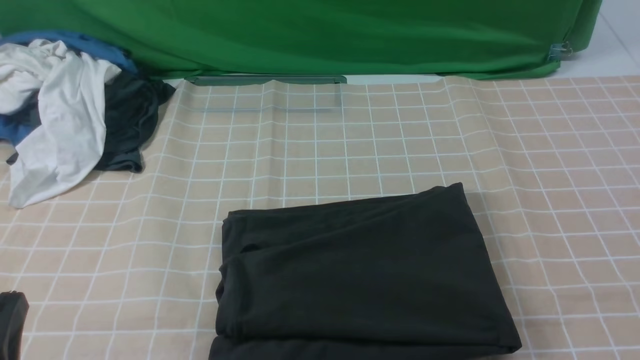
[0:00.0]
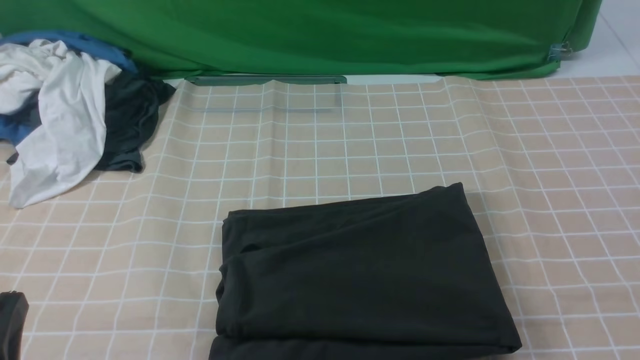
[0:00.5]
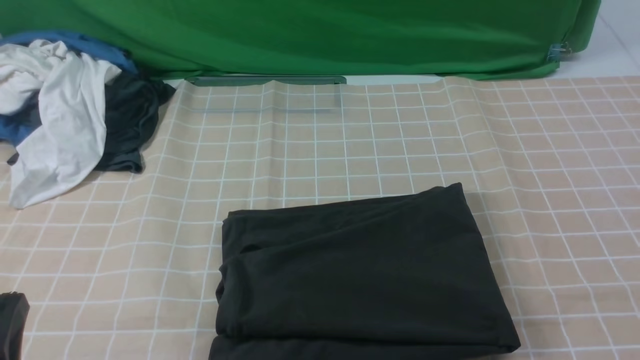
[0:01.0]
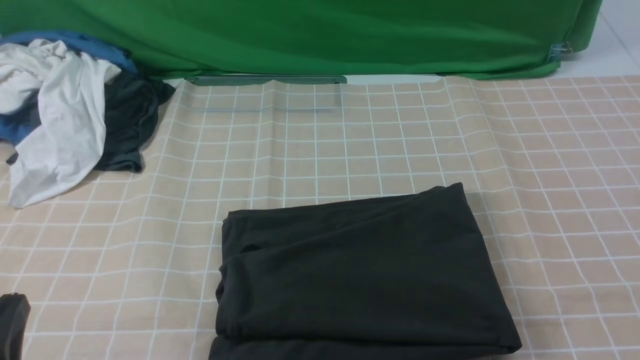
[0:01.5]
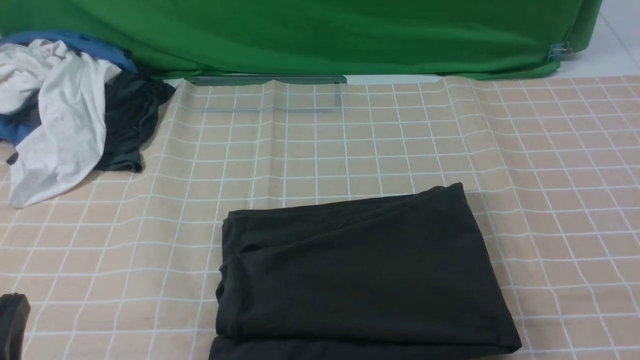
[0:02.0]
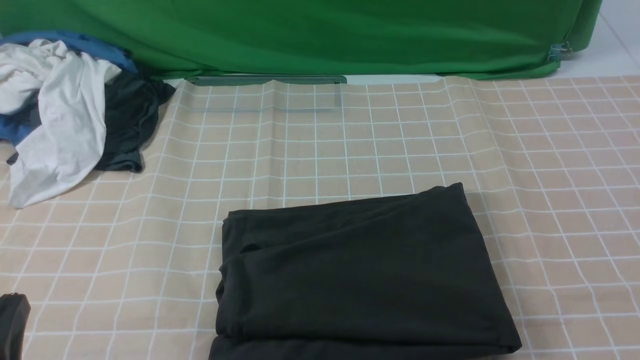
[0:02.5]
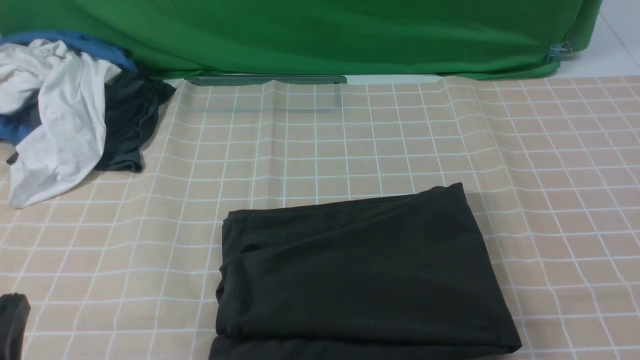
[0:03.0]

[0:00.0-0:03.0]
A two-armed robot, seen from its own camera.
0:01.5 to 0:03.0: Both grippers stay about where they are.

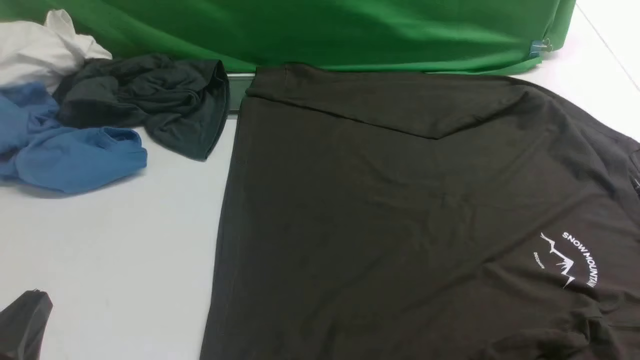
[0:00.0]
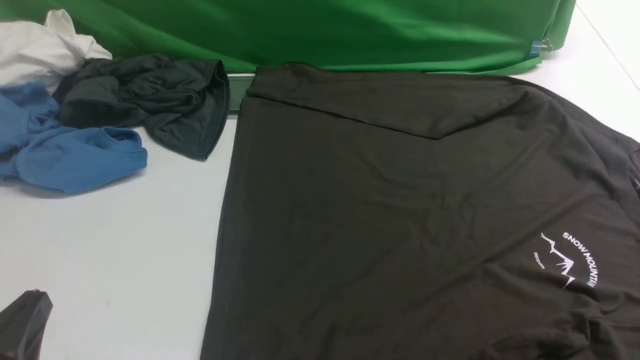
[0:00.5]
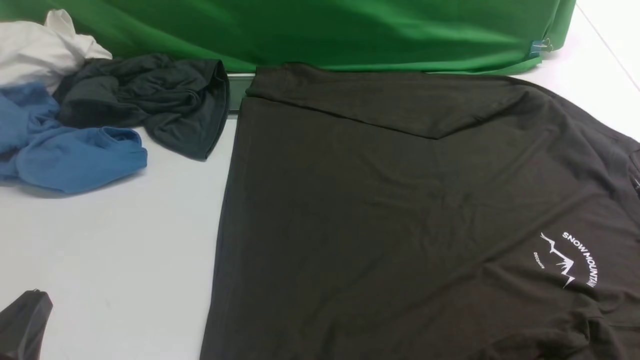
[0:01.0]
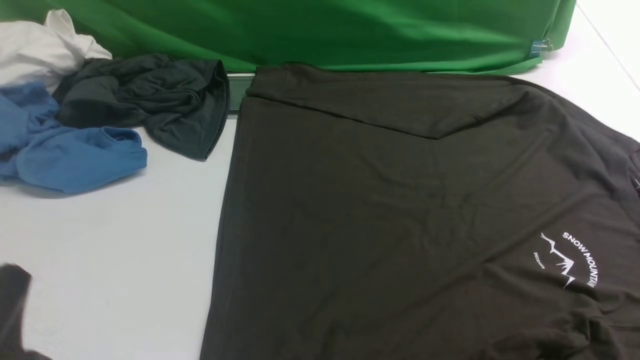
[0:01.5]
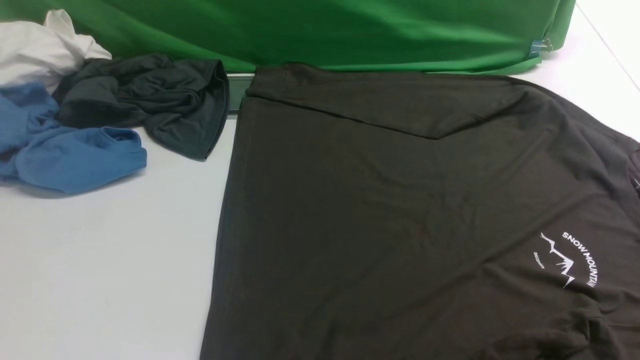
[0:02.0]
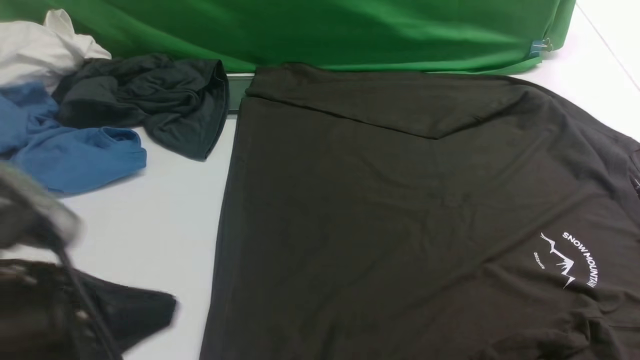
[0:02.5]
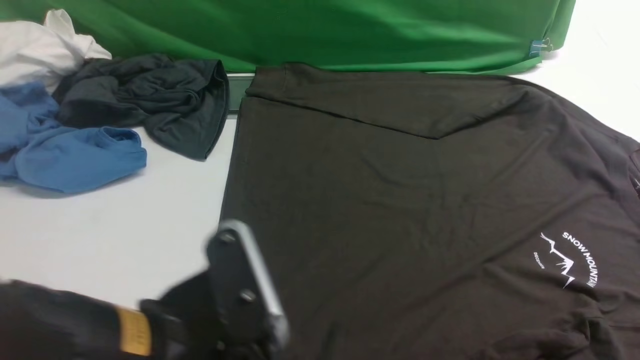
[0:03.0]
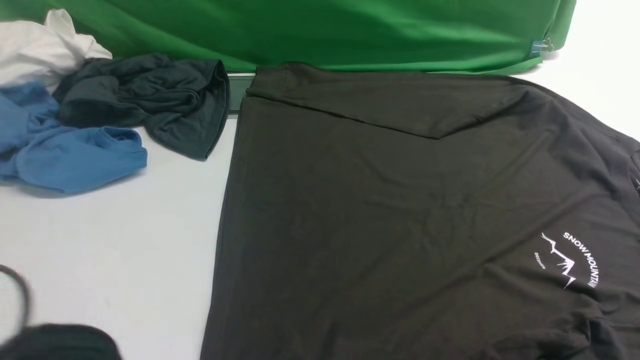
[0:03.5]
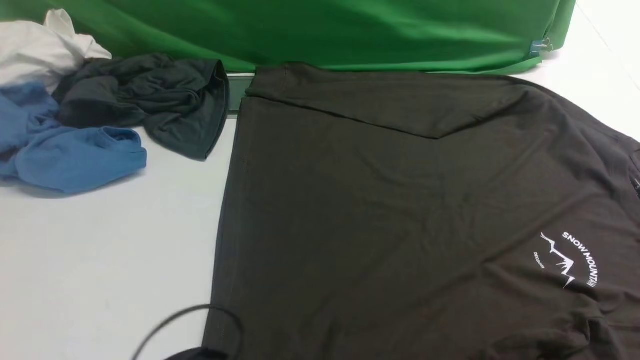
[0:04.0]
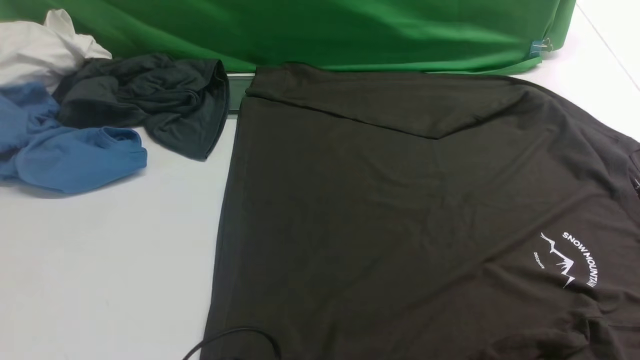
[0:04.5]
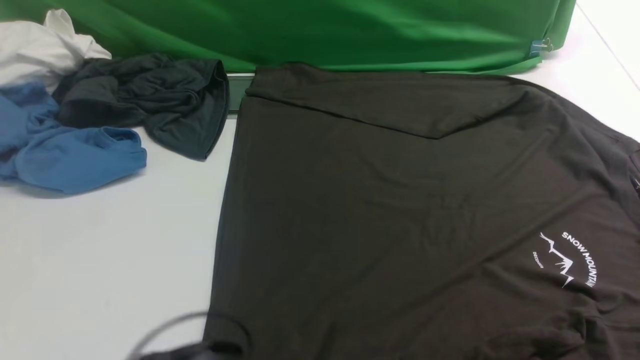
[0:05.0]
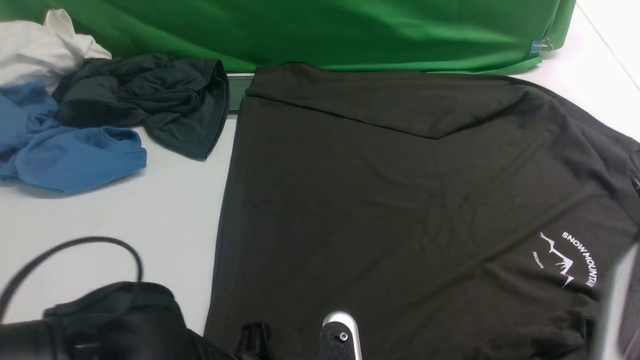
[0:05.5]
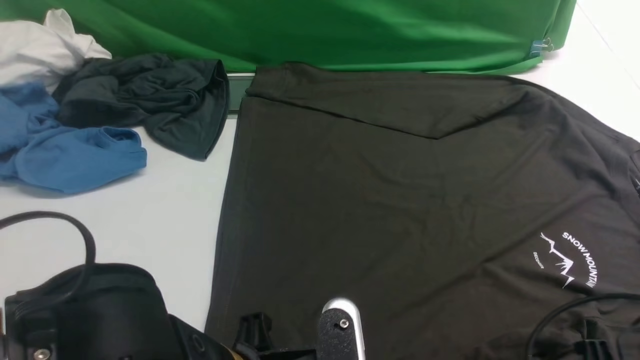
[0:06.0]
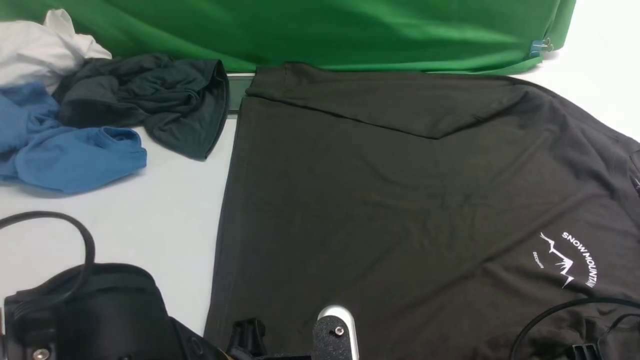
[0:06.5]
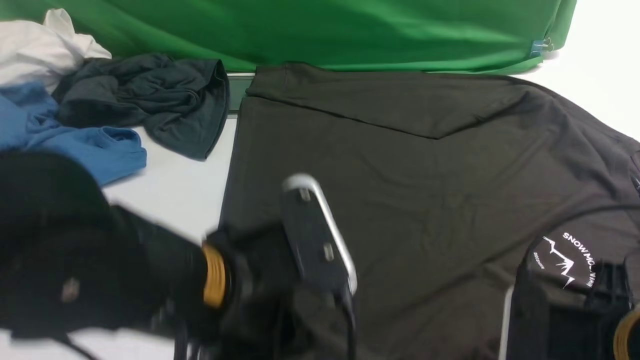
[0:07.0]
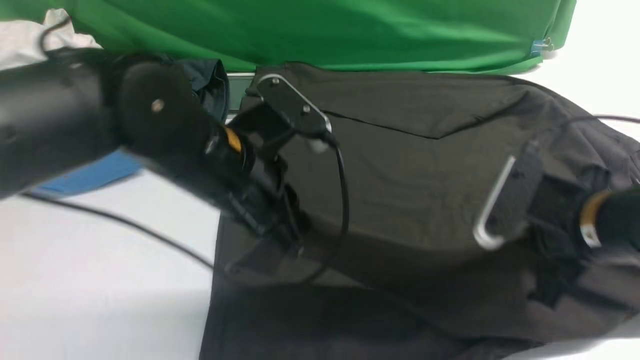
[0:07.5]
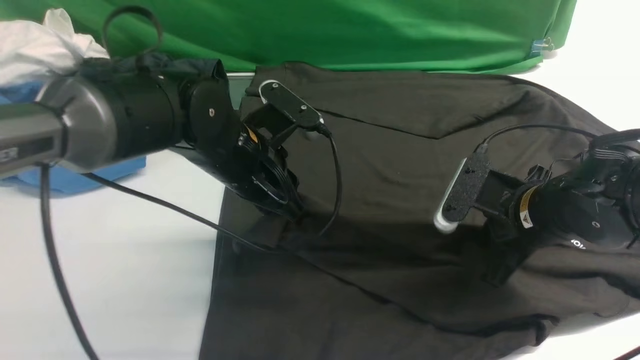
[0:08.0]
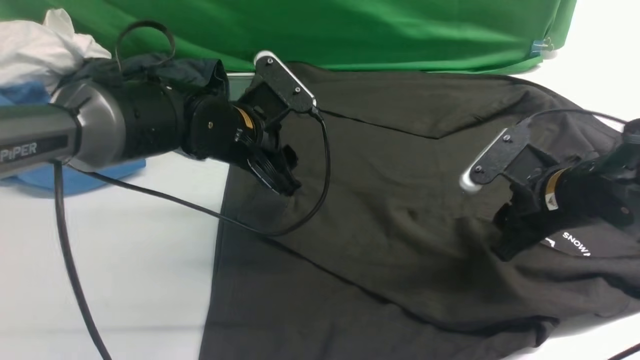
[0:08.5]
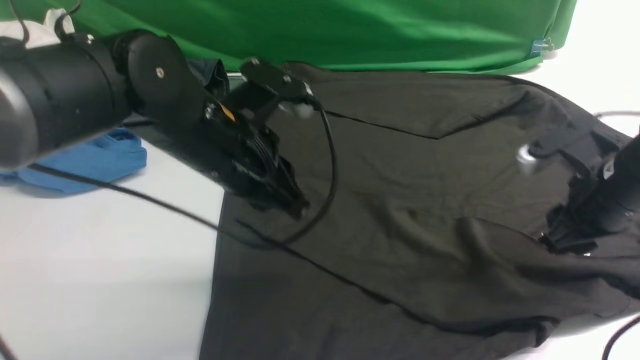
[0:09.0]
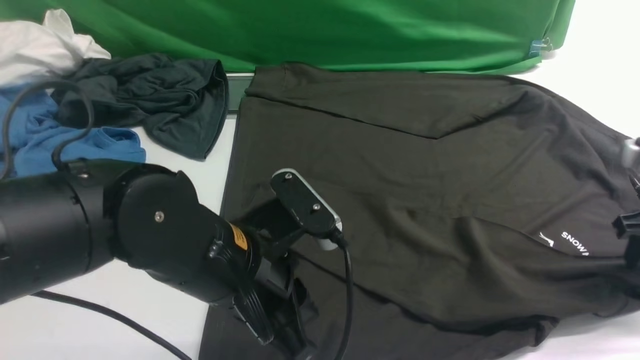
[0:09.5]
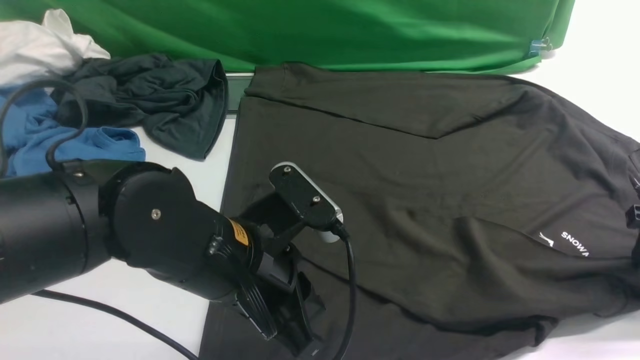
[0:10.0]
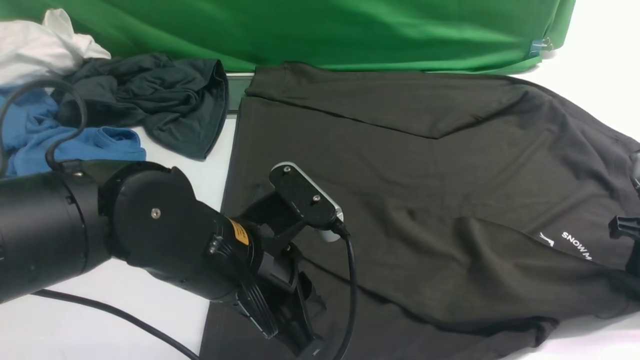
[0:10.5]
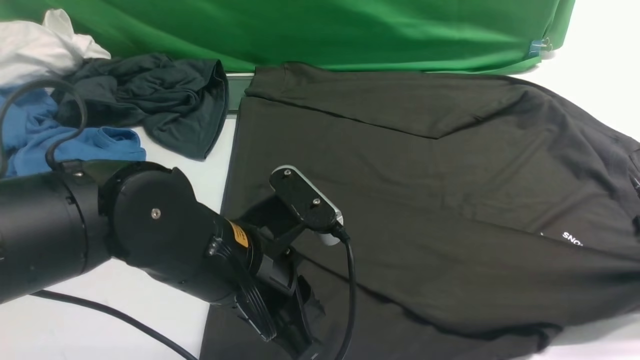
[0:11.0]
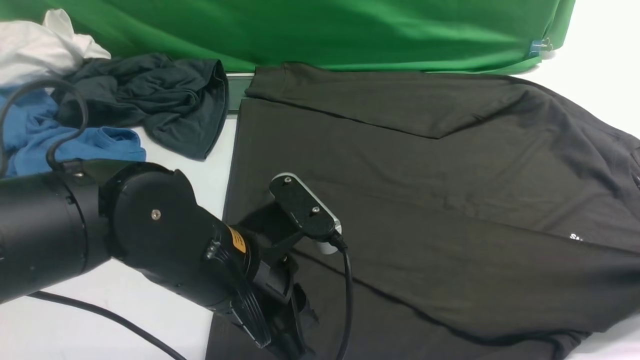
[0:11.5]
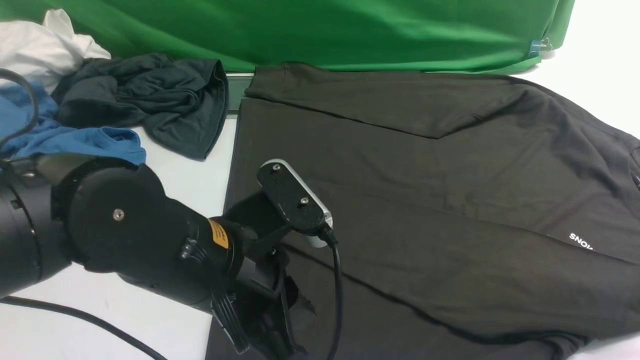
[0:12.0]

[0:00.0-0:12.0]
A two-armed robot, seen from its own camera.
Step, 0:00.0 to 0:06.5: use the left arm to clamp the cuff closest to it.
Step, 0:07.0 to 0:08.5: use the left arm to drag and place the cuff at the centered position on the left edge of the fabric.
0:00.0 to 0:02.0: The left gripper goes approximately 10 cm upward.
0:04.0 to 0:06.0: The left gripper is displaced upward by roughly 5 cm, and closes up, while the right gripper heads downward and to the left, covering about 15 cm, and opens up.
0:06.0 to 0:08.0: The two grippers go about 20 cm forward. The right gripper closes up. Meanwhile the left gripper opens.
0:08.0 to 0:10.0: The right gripper shifts some 15 cm to the right, and opens its fingers. Meanwhile the left gripper heads backward, covering roughly 15 cm, and closes.
0:10.0 to 0:12.0: The right gripper goes about 5 cm upward, and closes.

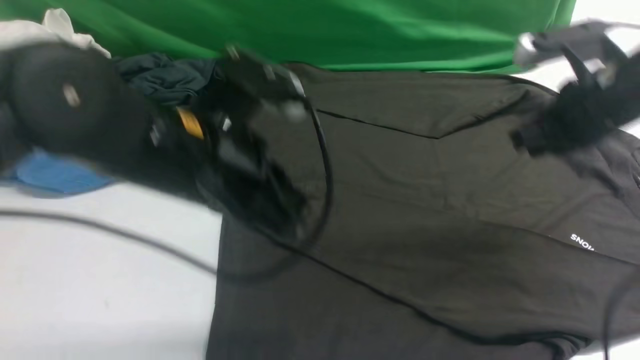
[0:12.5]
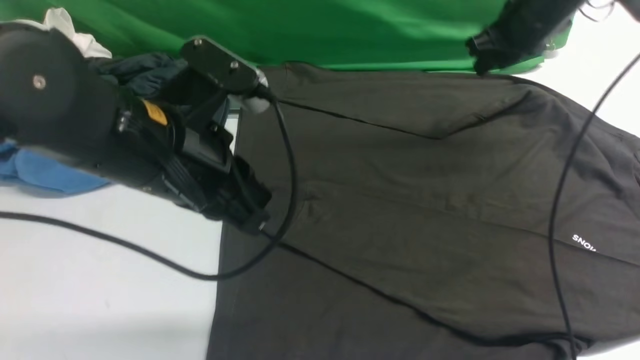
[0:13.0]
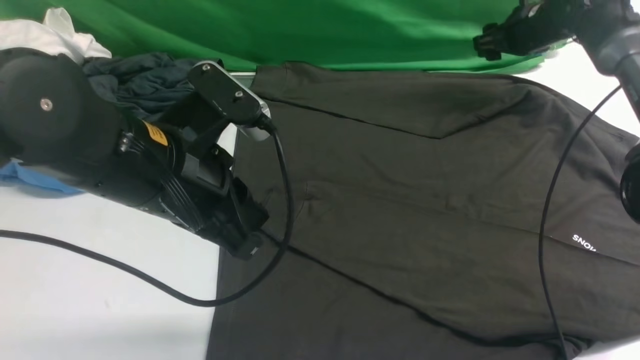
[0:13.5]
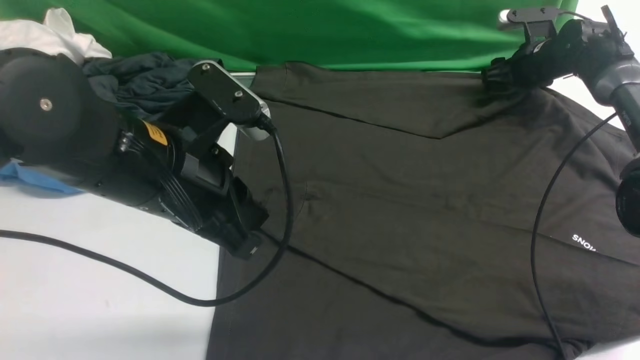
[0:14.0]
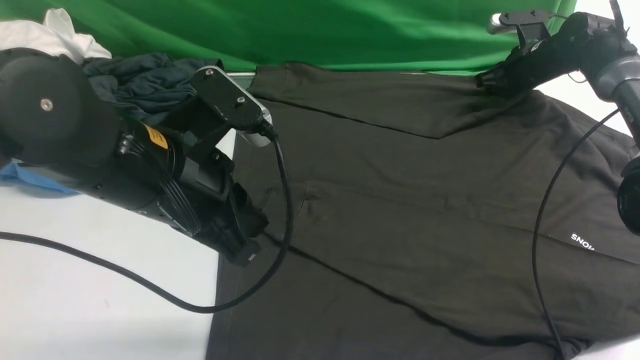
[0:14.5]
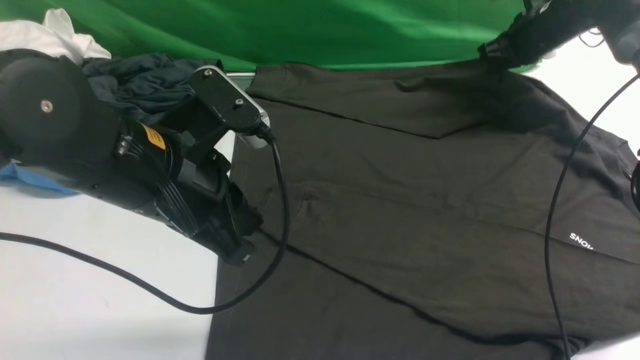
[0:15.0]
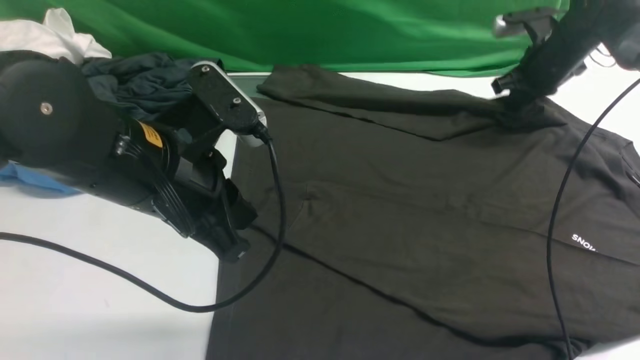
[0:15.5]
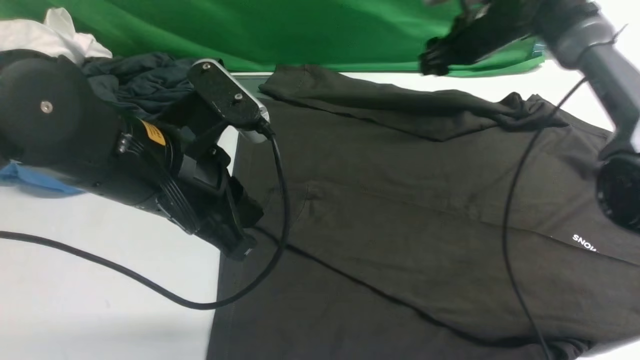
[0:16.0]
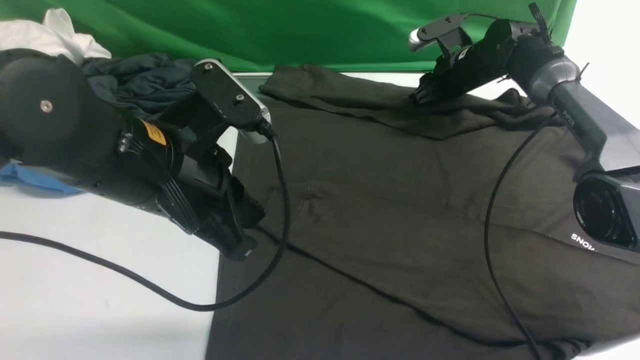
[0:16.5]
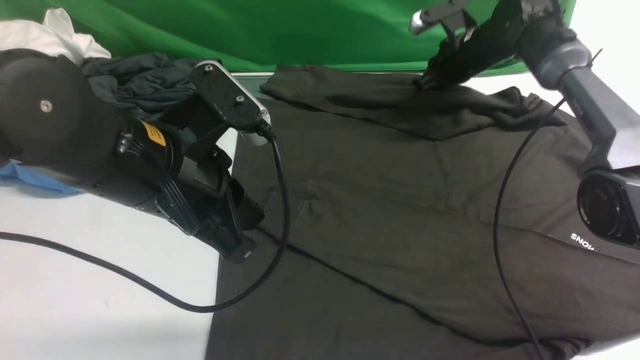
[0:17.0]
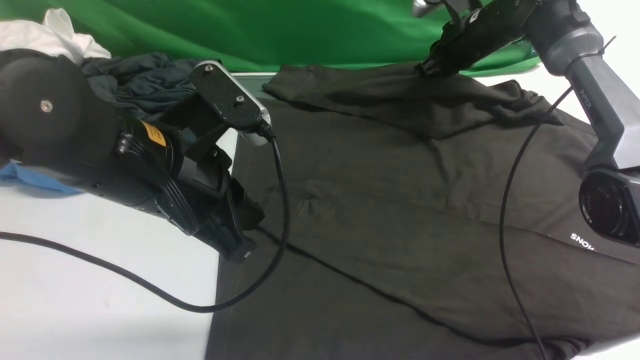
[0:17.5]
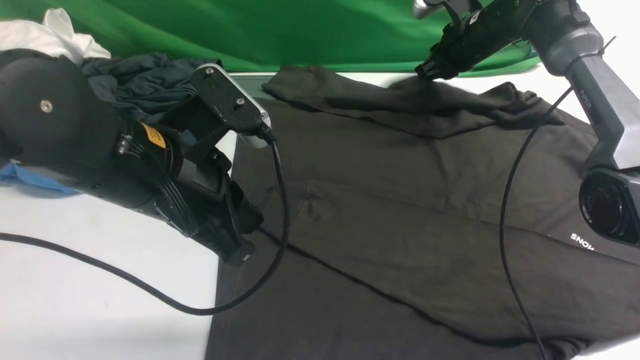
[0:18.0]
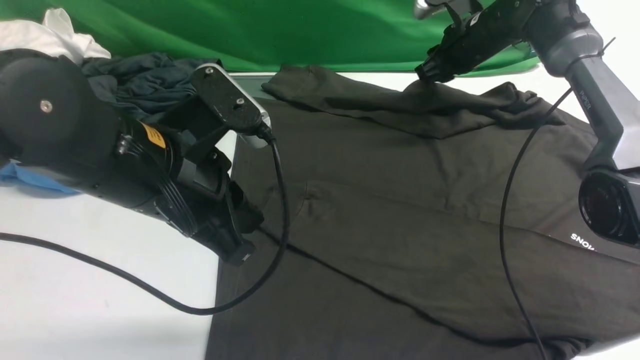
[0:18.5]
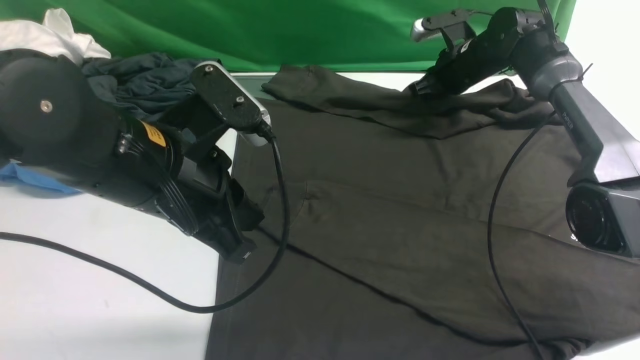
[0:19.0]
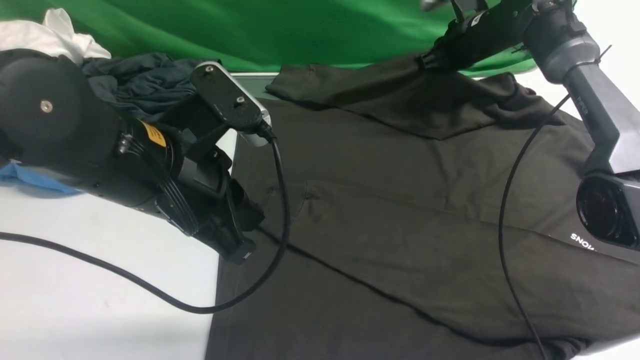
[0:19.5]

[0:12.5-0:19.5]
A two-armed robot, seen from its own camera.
0:12.5 to 0:14.5: The right gripper is displaced forward and downward by some 25 cm, and opens, then closes once more.
0:14.5 to 0:16.0: The right gripper heads to the left, covering some 10 cm, and opens its fingers.
0:16.0 to 0:17.5: The right gripper closes up.
0:17.5 to 0:19.5: The right gripper opens, then closes once more.
